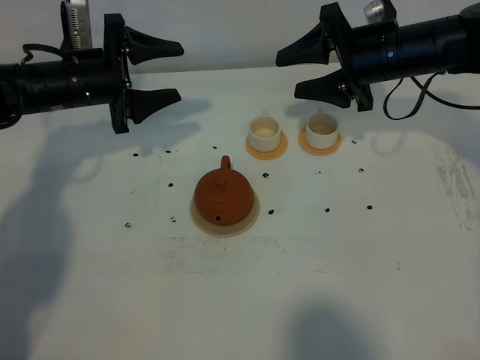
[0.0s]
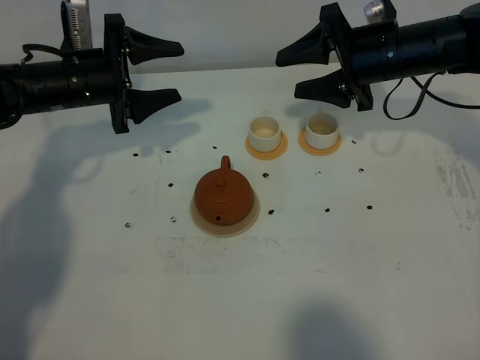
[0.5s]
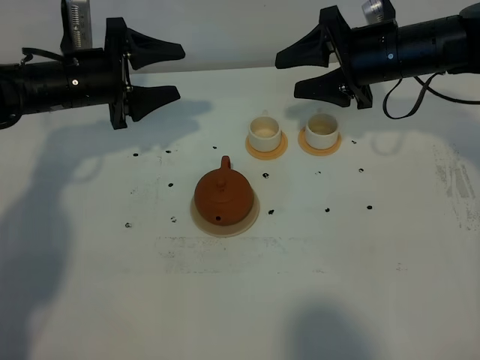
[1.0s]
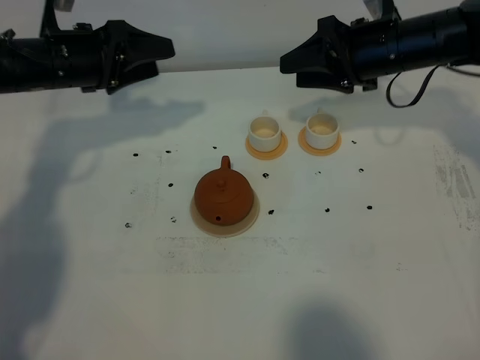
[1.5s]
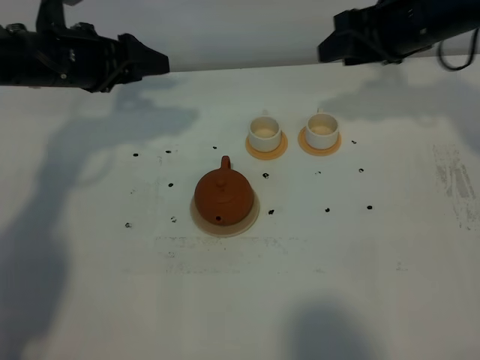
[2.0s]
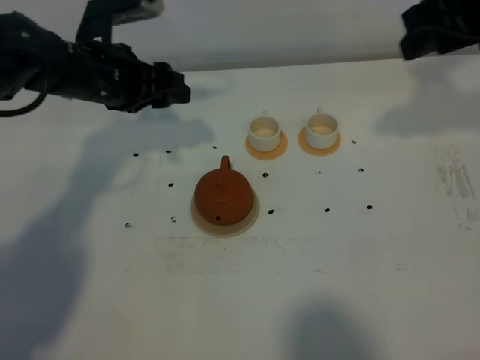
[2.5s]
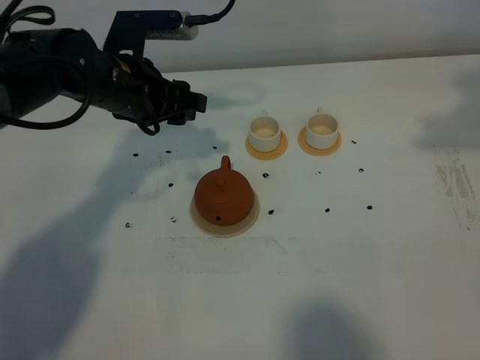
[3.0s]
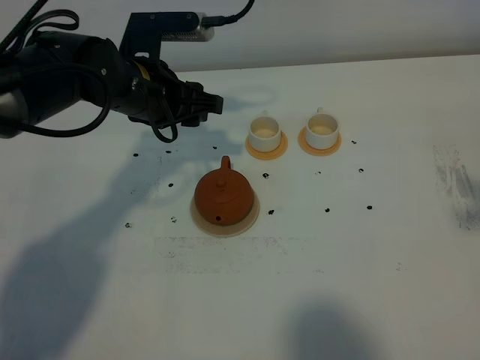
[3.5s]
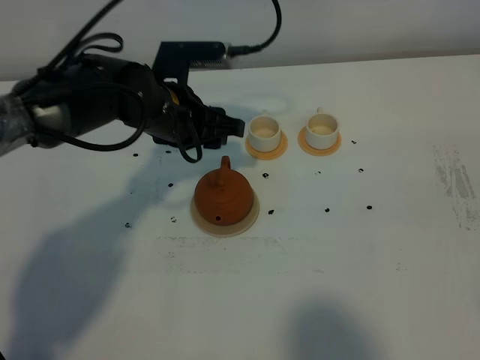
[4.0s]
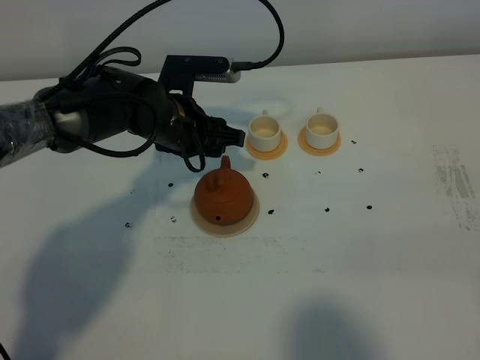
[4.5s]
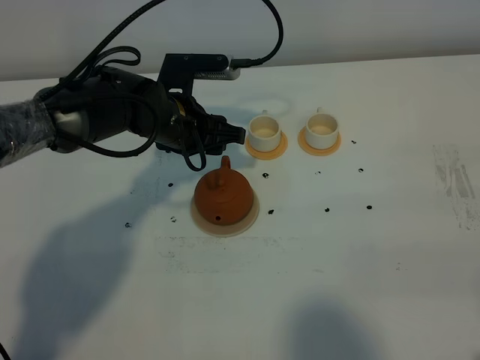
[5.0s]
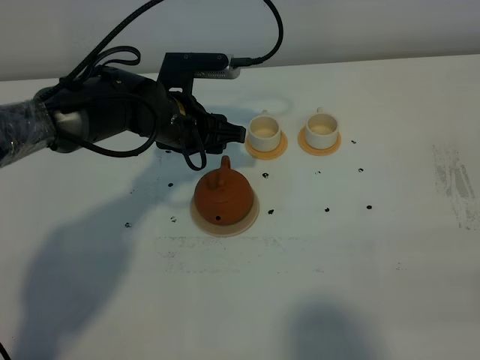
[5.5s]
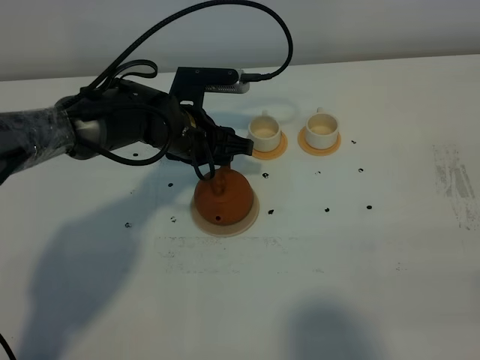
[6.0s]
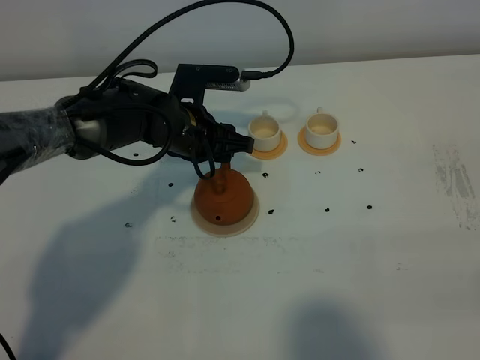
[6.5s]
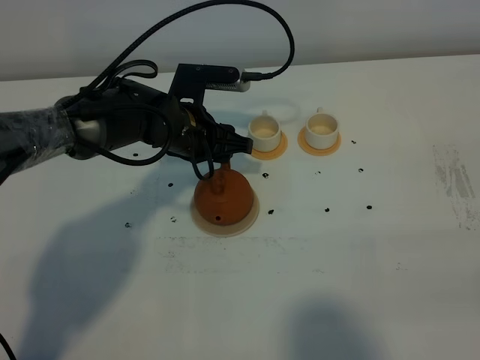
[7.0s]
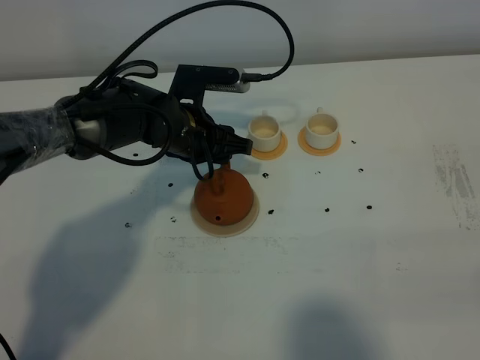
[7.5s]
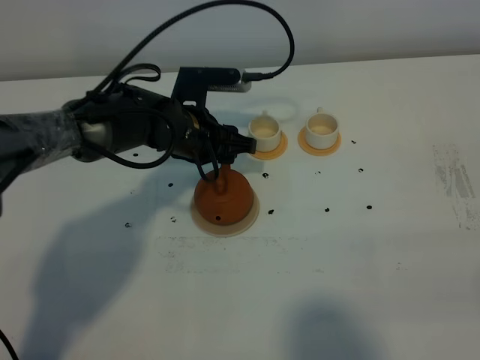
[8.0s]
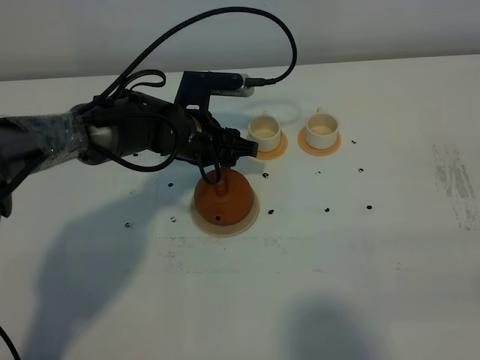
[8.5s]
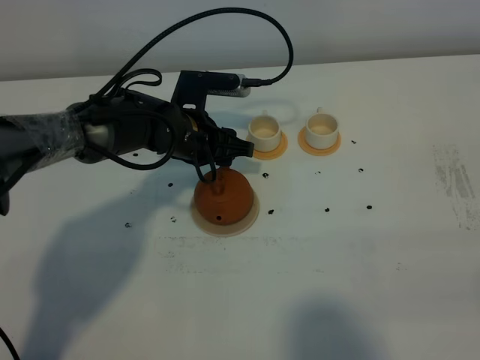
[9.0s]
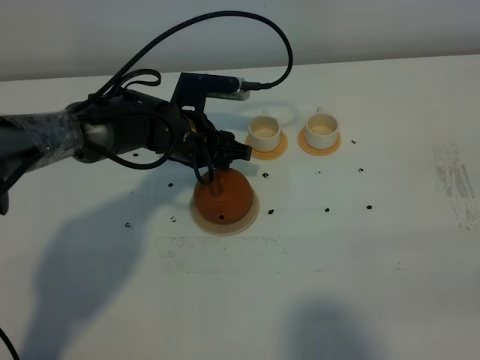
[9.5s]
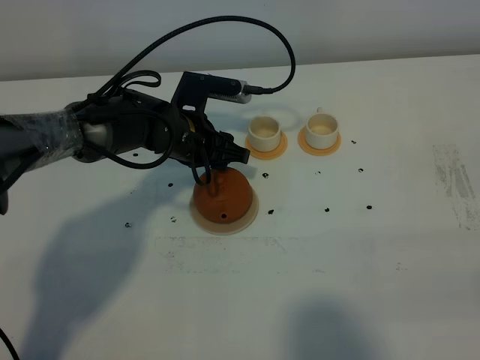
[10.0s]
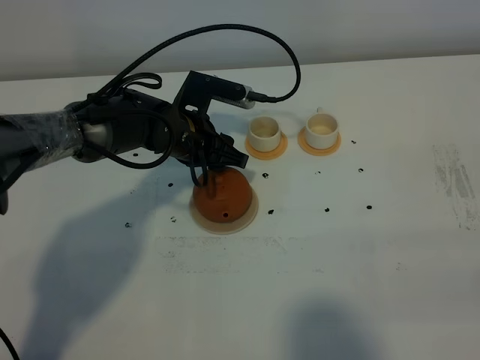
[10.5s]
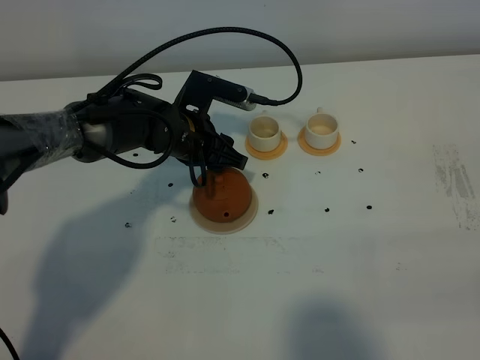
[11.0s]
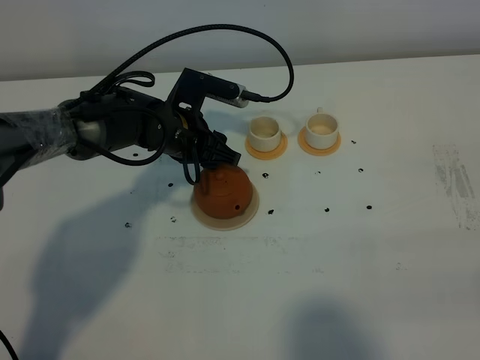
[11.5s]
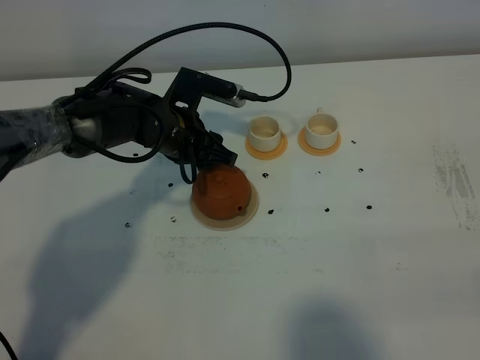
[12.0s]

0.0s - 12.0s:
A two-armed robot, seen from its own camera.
Task of the whole recording: grasp the brown teapot and pour the tea into the two white teacups one by one, put the brown teapot back in its original place.
0.0s - 2.0s: Both grippers travel together upward, some 5 cm.
2.0s - 4.0s: The left gripper is displaced to the right and downward by about 15 cm, while the right gripper goes some 35 cm backward.
4.0s - 6.0s: The right gripper travels downward by roughly 10 cm.
6.0s - 12.0s: There are only small adjustments of the grippers.

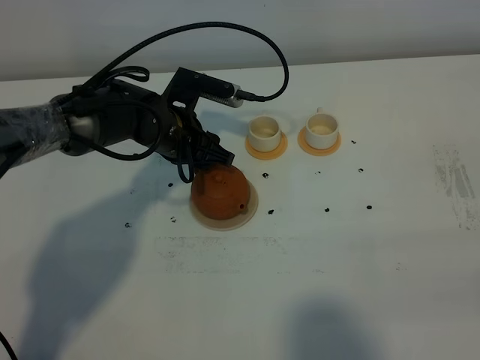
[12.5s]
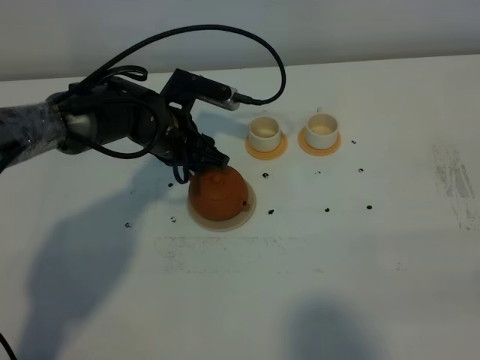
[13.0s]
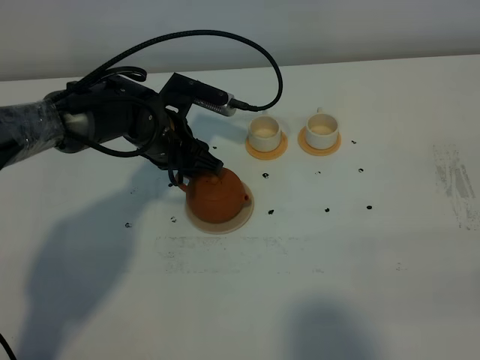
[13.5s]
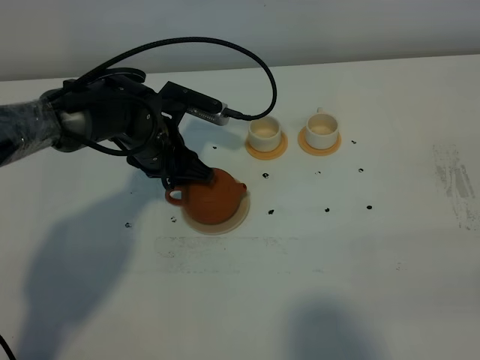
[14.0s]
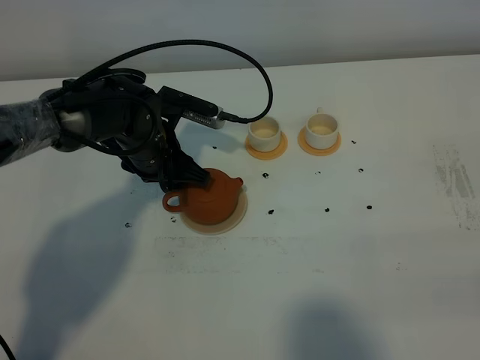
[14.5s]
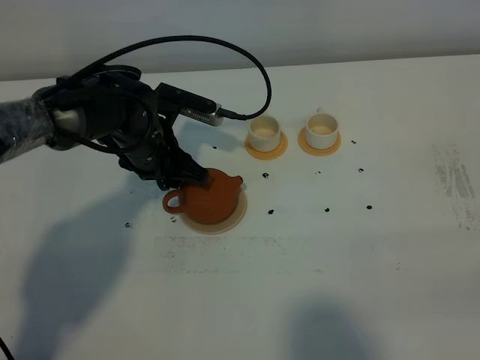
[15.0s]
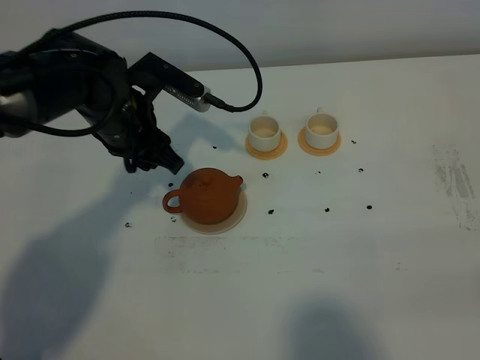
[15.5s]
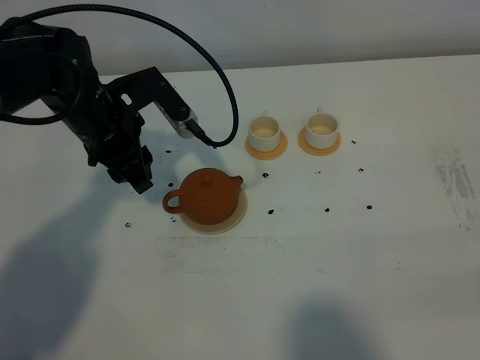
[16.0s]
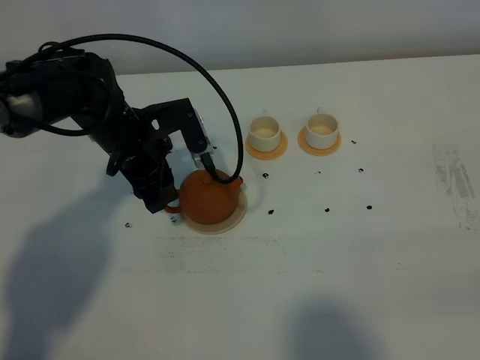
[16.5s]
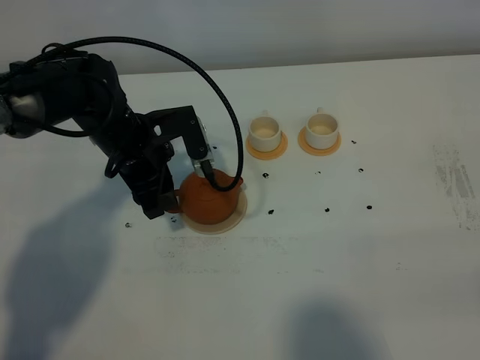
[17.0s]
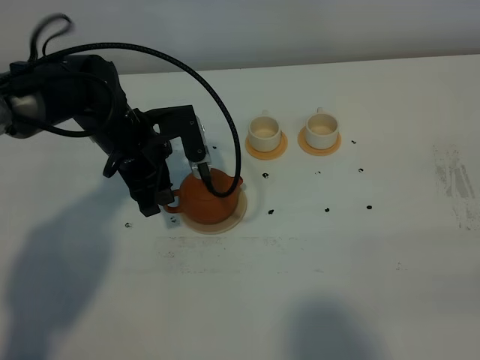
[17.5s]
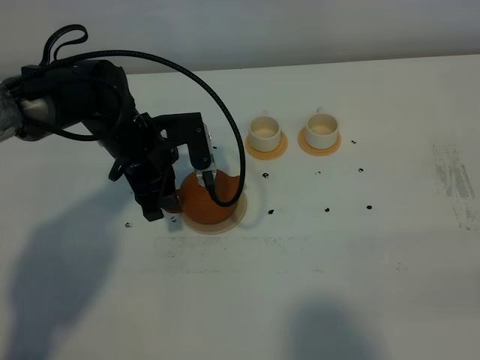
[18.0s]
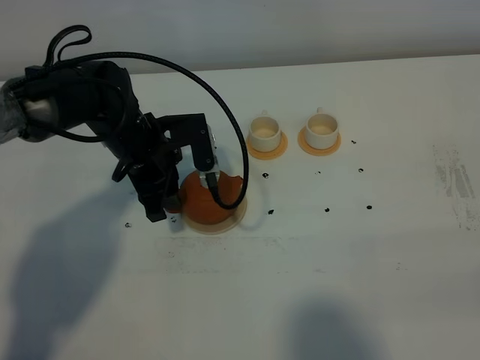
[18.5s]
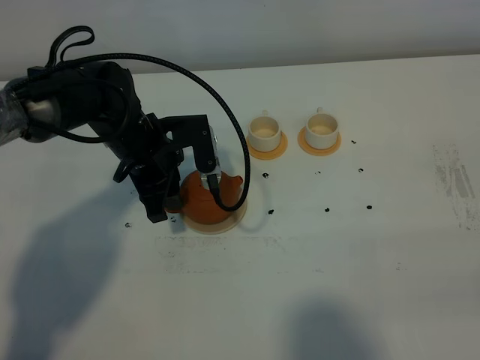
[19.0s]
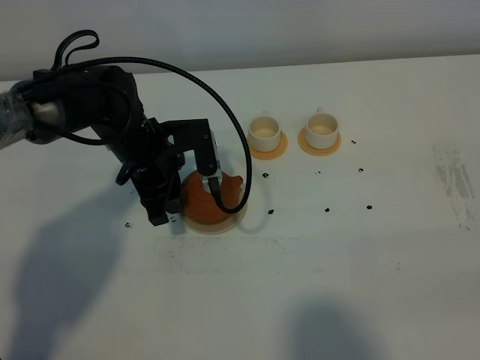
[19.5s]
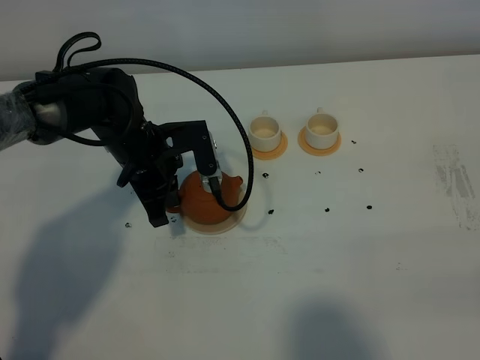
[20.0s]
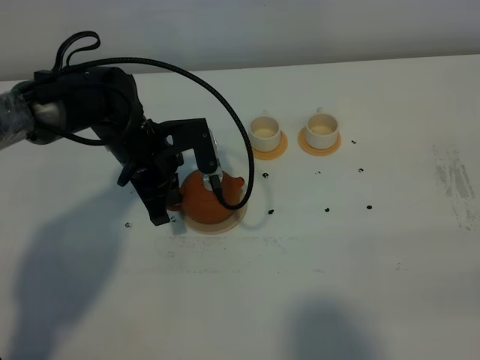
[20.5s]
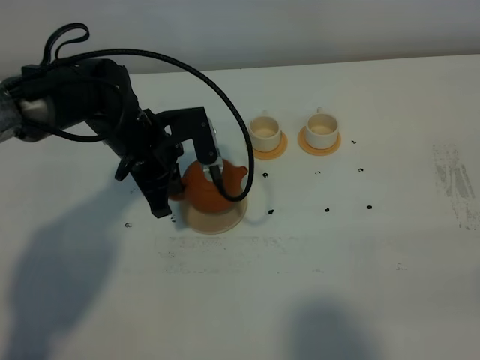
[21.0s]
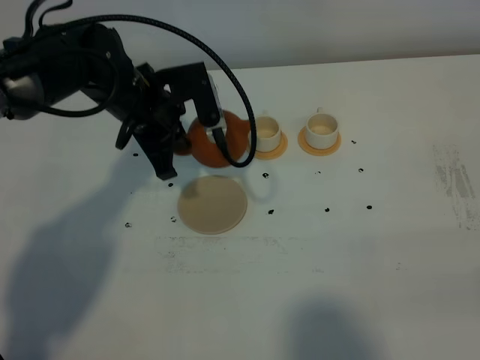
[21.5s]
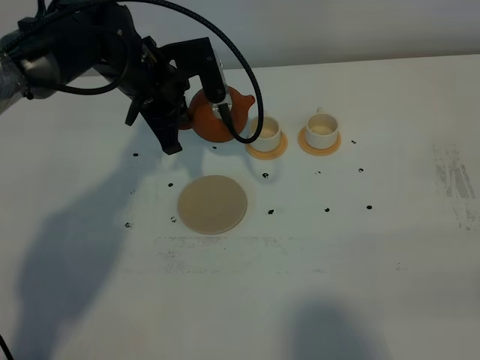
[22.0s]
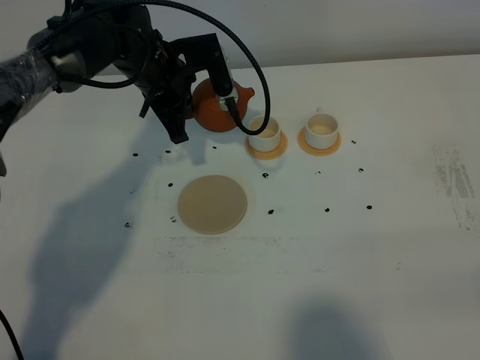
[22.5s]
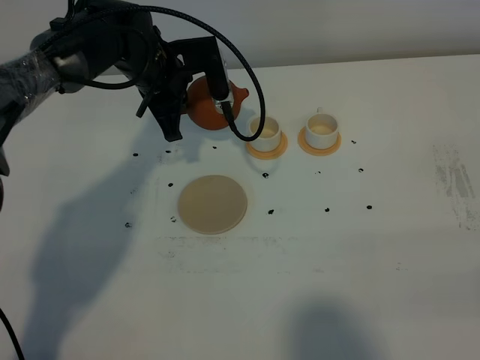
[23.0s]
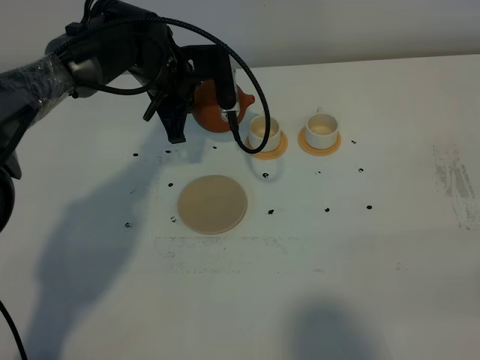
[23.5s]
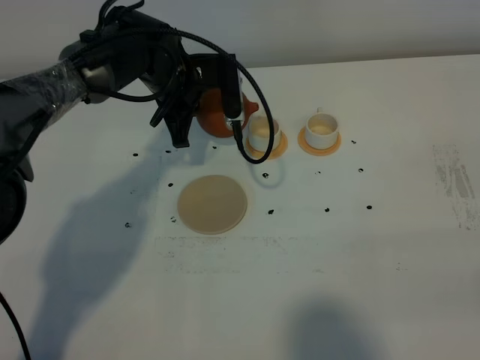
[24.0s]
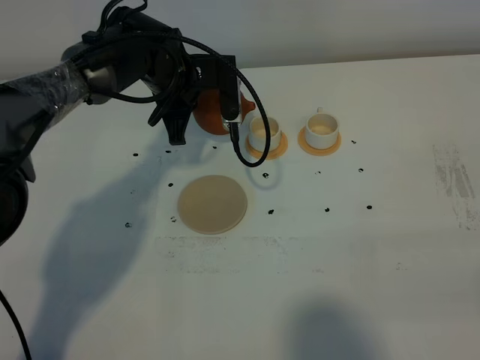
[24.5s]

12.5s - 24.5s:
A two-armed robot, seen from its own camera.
Task of the whole recording: grasp the brown teapot and pour the tea into the two white teacups one by one, put the brown teapot back in its original place.
Step, 12.5s - 21.0s: Pick up the teapot with the left gripper.
12.5s - 14.5s: There are only small adjustments of the grippers.
16.5s - 18.5s: The grippers make only small movements.
18.5s - 20.5s: The left gripper closes.
20.5s - 22.5s: The left gripper travels forward and upward by about 10 cm.
22.5s - 24.5s: The grippers stay close to where they were, moving slightly.

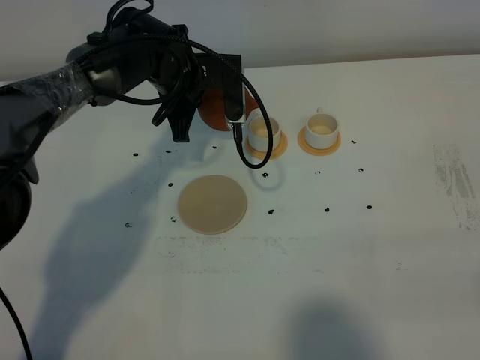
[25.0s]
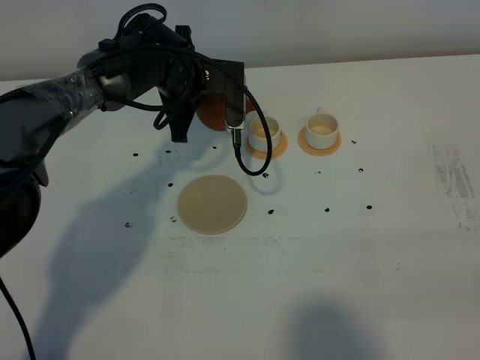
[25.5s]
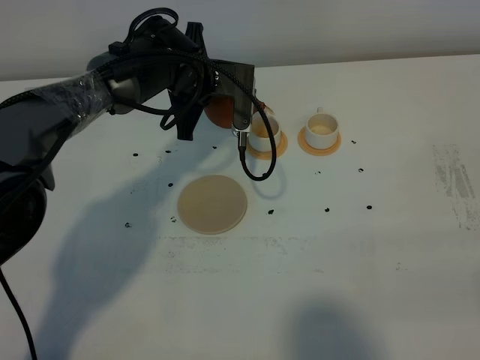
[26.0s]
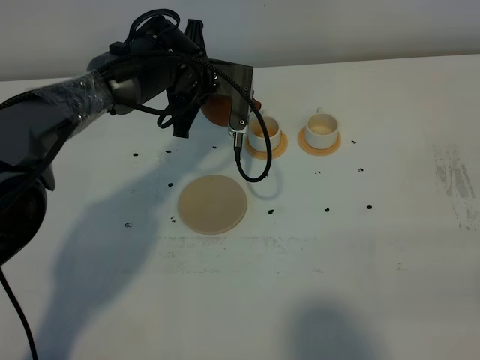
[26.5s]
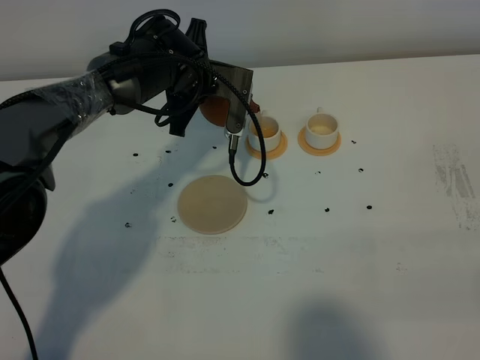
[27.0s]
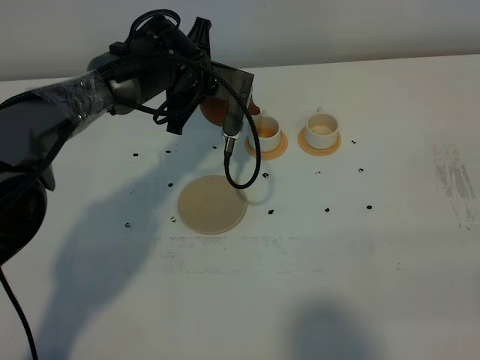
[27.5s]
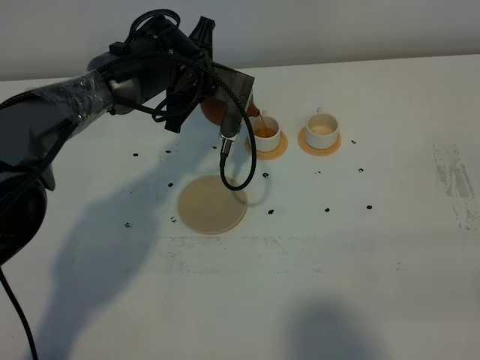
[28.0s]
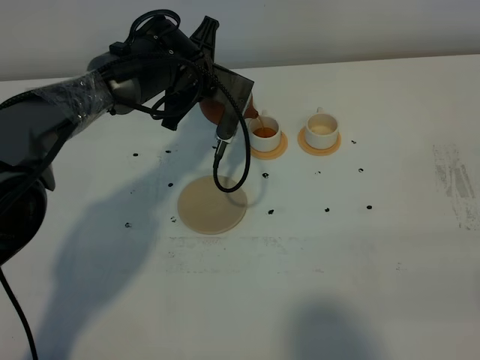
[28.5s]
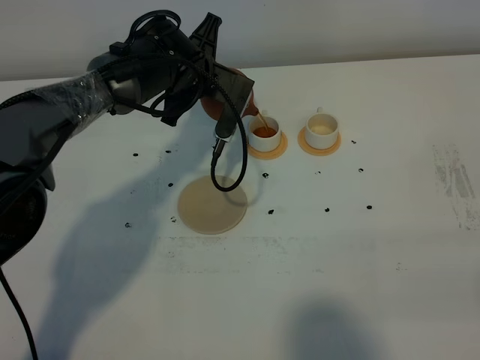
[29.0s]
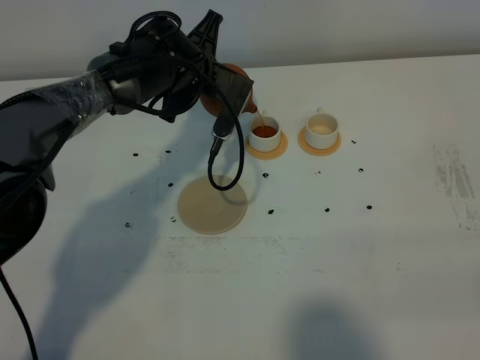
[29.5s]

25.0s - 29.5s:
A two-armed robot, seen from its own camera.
Task of the whole recording: grasp the brown teapot and pour the tea into the two white teacups one by one, put the brown teapot back in its original place.
25.0s - 27.0s: There are only small adjustments of the grippers.
27.0s - 29.5s: The grippers make only small movements.
